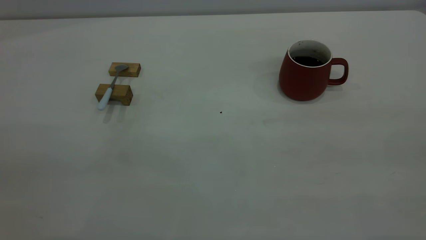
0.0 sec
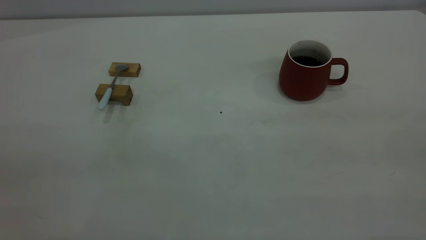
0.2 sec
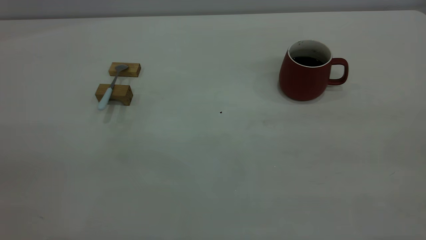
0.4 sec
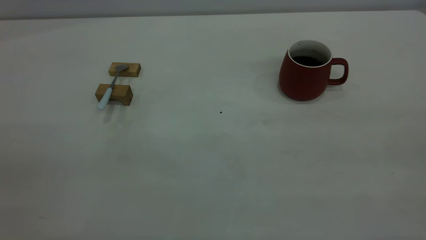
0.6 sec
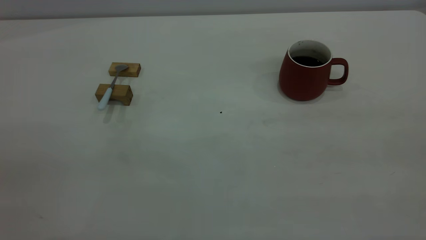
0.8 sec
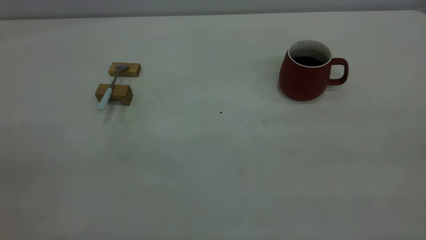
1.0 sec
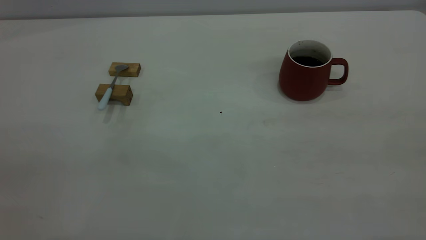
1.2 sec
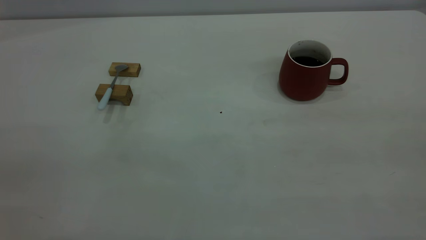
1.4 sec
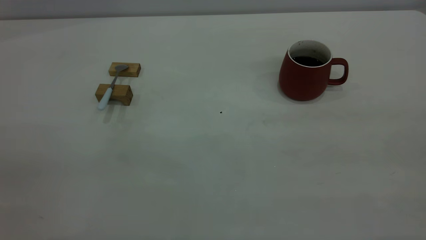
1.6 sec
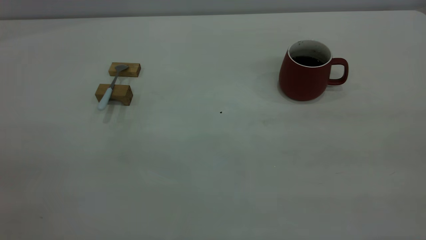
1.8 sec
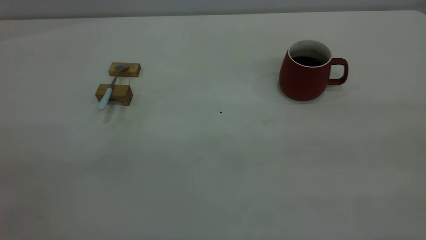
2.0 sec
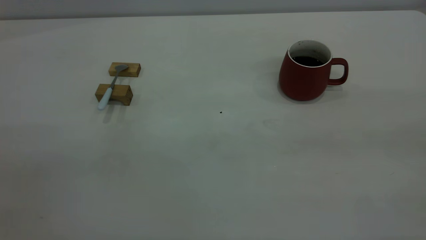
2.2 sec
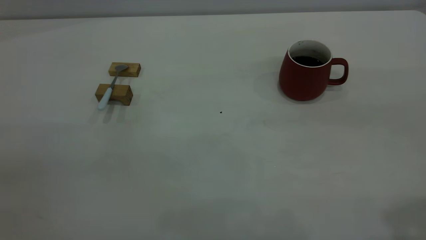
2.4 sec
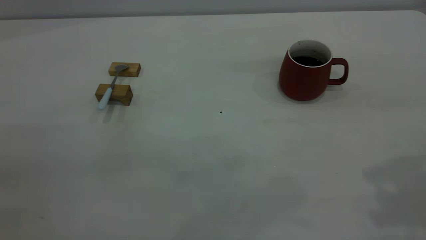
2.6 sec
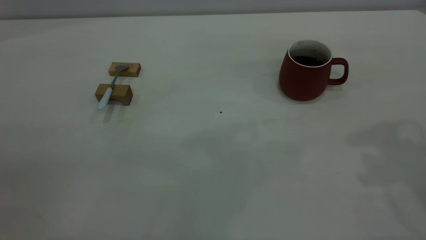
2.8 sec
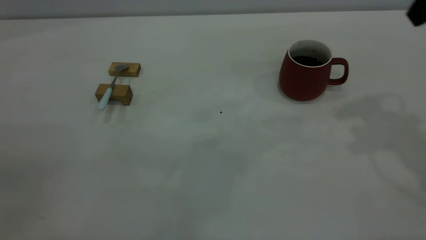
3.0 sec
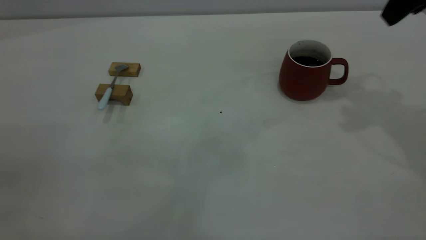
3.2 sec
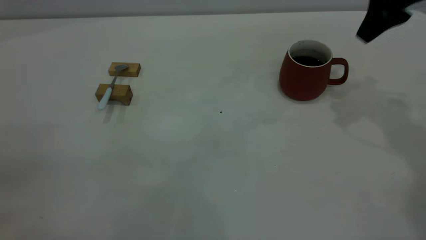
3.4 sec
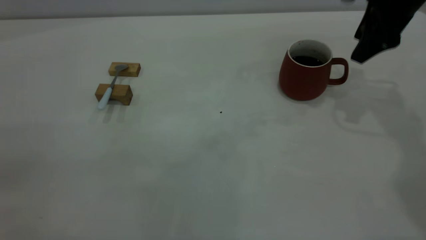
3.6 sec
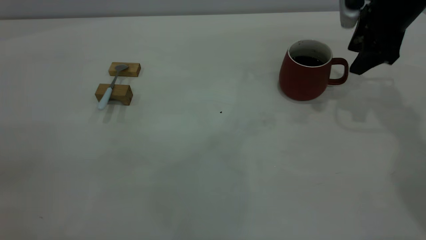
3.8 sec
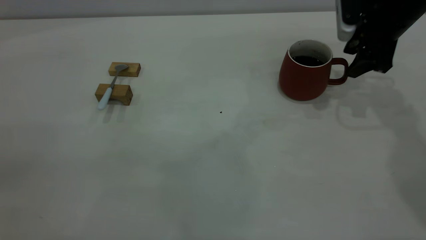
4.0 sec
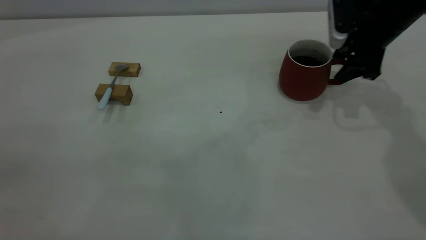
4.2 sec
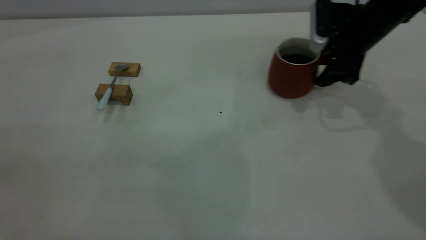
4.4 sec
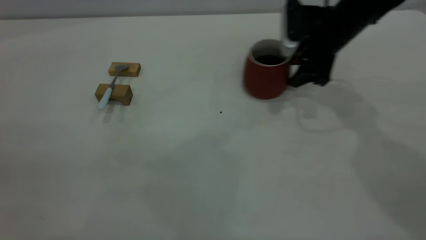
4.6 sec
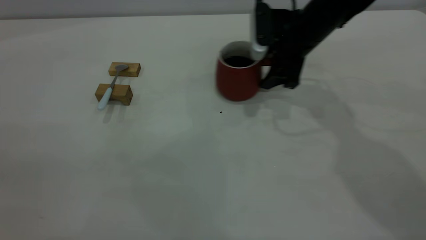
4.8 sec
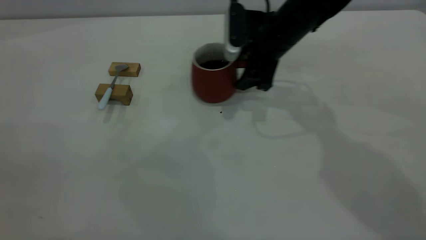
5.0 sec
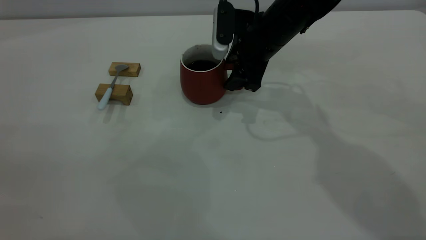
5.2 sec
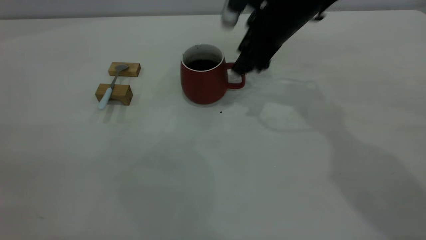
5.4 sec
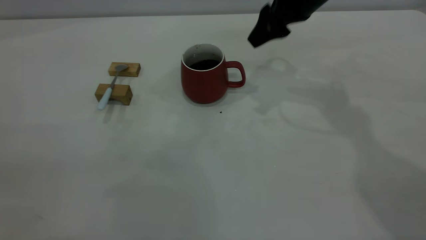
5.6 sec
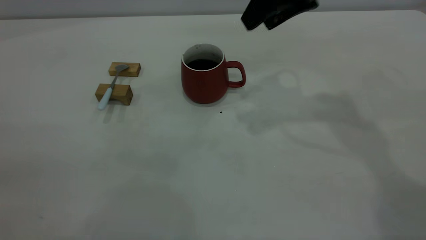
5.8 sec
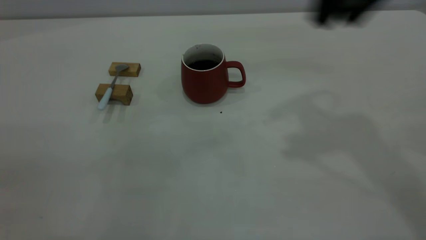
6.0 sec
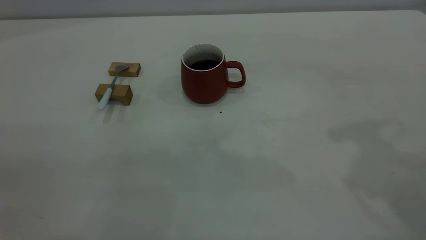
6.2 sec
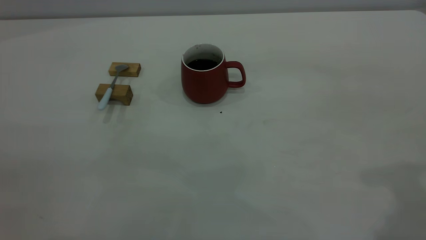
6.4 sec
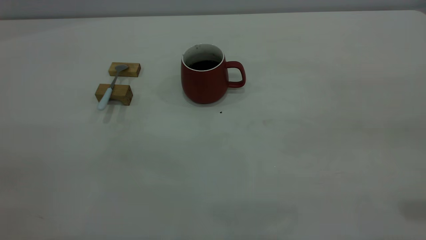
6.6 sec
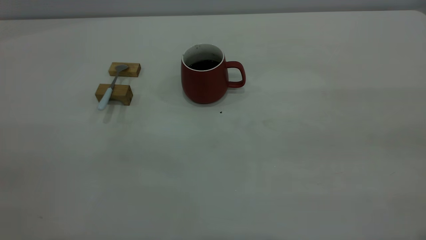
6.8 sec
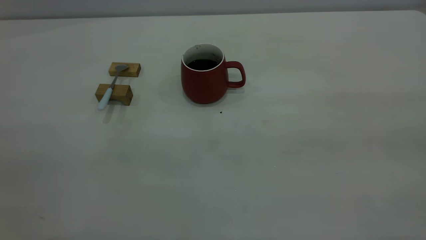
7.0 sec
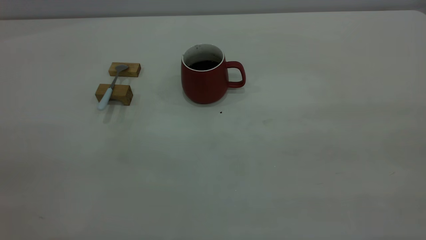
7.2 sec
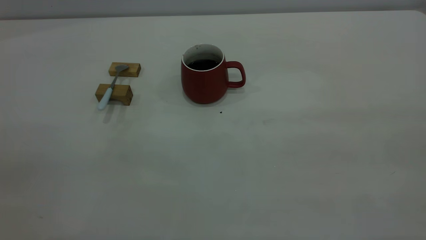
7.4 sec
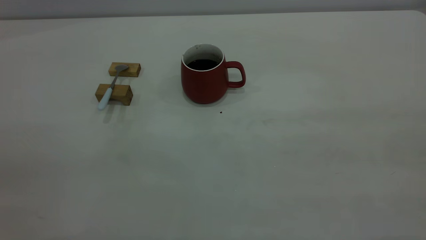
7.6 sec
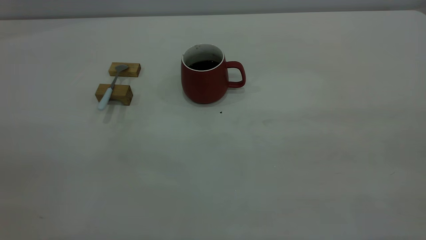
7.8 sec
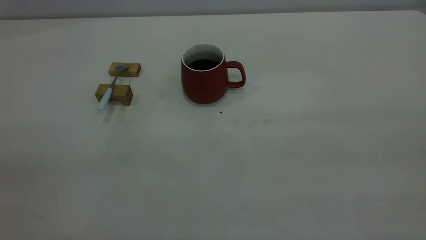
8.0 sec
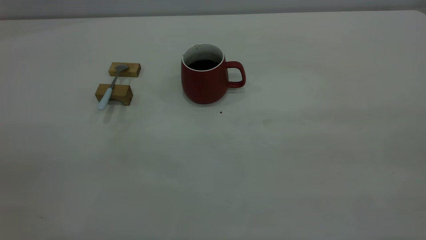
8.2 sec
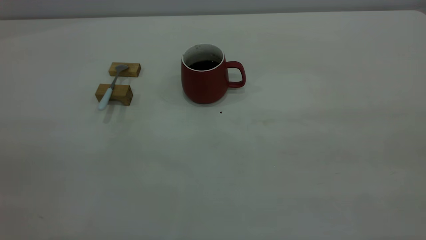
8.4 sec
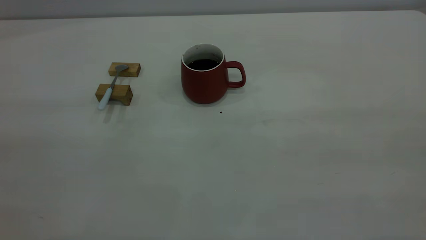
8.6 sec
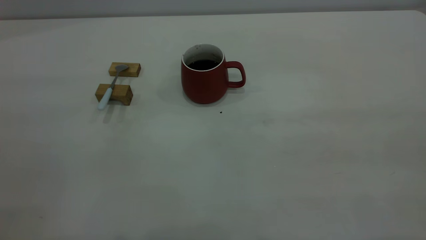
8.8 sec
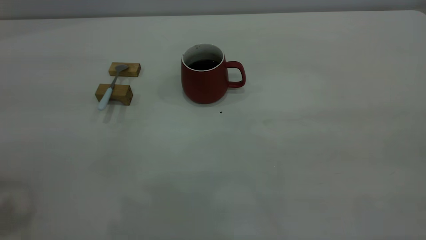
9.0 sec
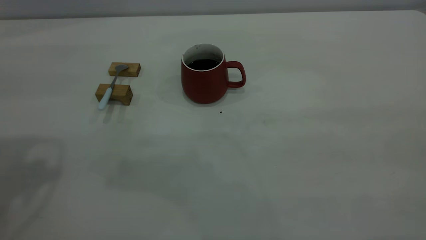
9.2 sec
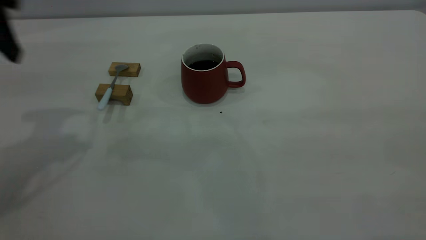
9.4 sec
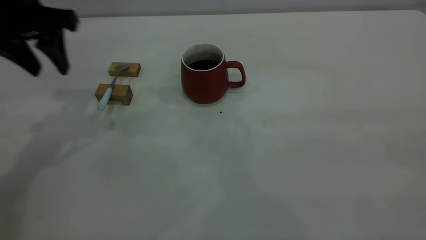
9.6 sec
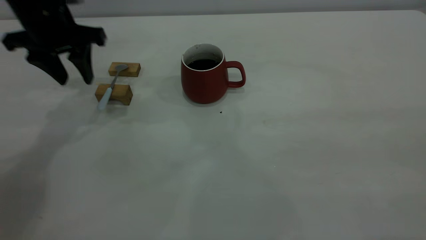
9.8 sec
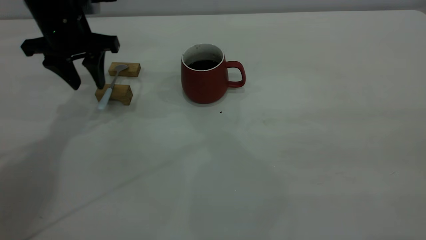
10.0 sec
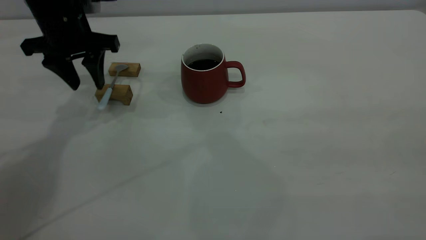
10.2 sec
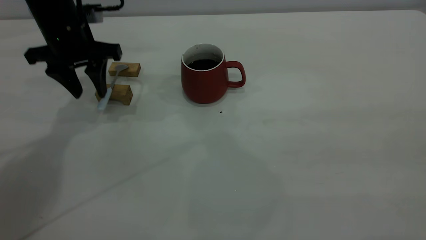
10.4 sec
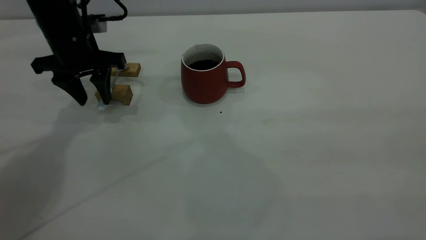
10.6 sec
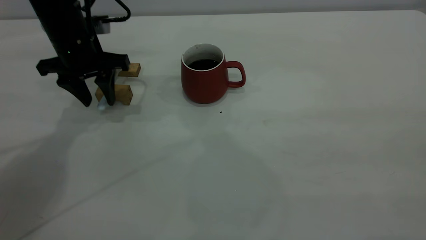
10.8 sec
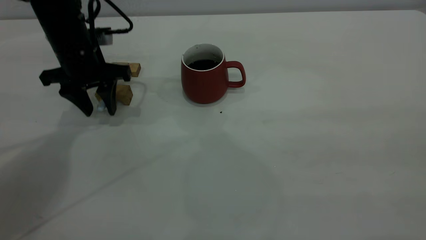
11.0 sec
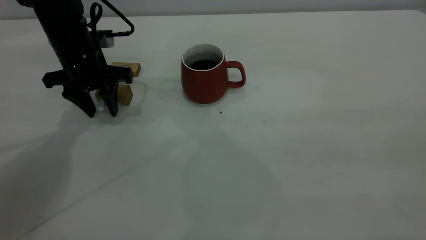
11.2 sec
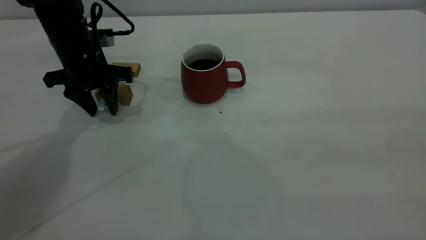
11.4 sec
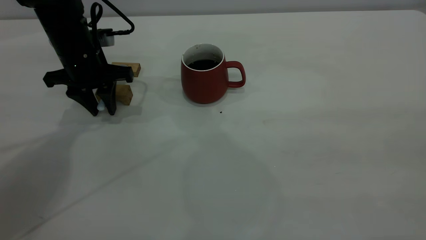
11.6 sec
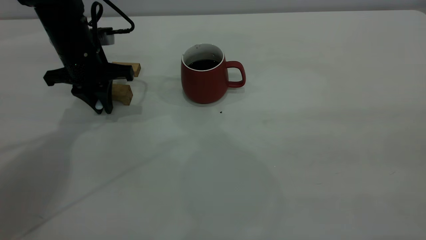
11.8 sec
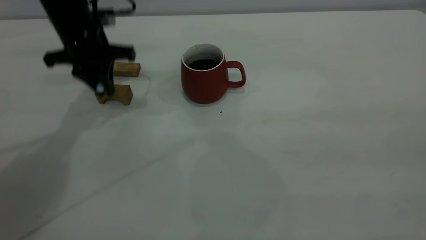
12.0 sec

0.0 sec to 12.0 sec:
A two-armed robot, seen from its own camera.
Step, 0.0 sec to 5.6 sec: Move the cup with coffee to the center of view.
0.0 sec to 1.6 sec: Both grippers stay about where they are.
3.0 sec to 4.4 sec: The right gripper is displaced downward and forward by approximately 20 cm.
4.4 sec to 6.0 sec: The right gripper heads upward and backward, covering roughly 25 cm.
6.0 sec to 7.6 sec: The right gripper is displaced backward by some 30 cm.
9.0 sec to 10.4 sec: The left gripper moves downward and forward, approximately 35 cm.
10.4 sec to 12.0 sec: The left gripper closes.

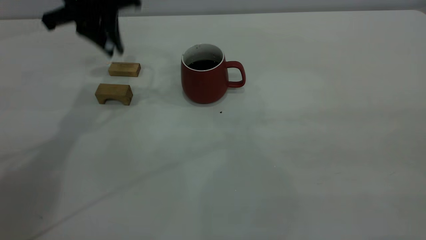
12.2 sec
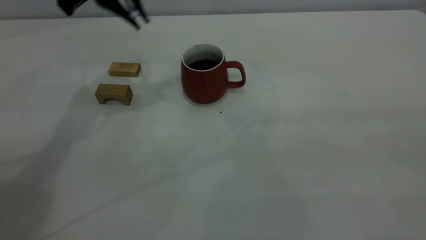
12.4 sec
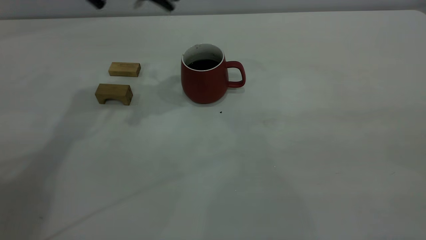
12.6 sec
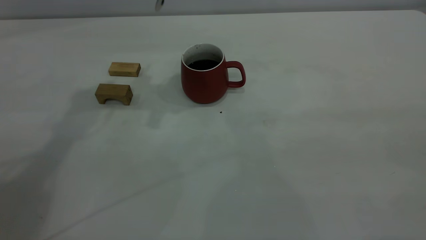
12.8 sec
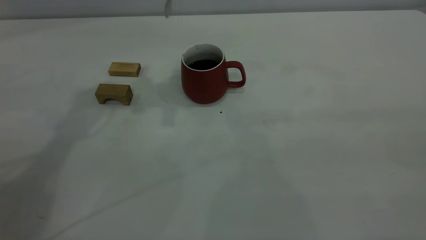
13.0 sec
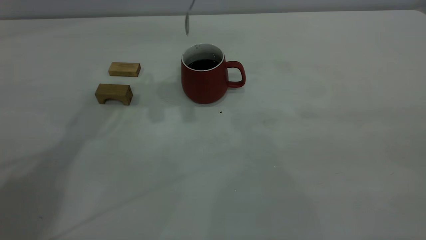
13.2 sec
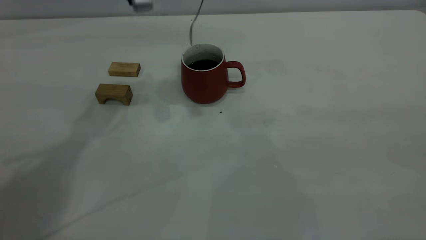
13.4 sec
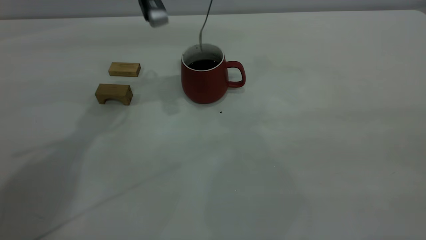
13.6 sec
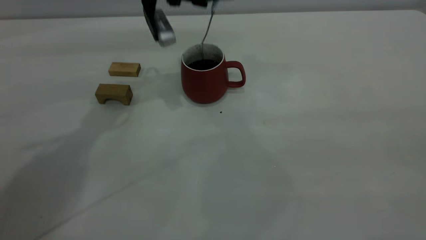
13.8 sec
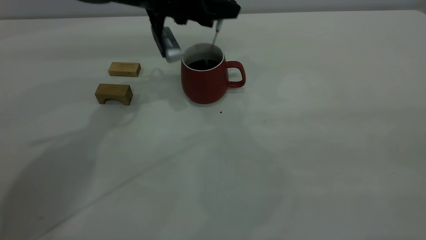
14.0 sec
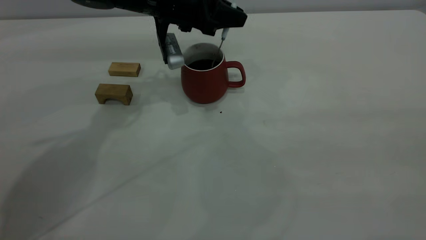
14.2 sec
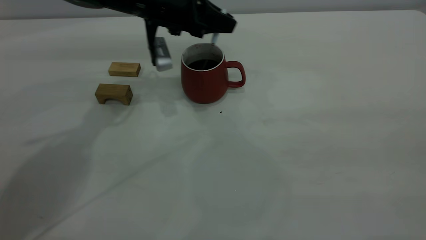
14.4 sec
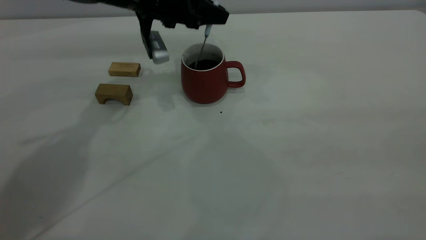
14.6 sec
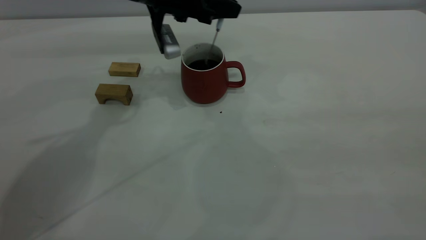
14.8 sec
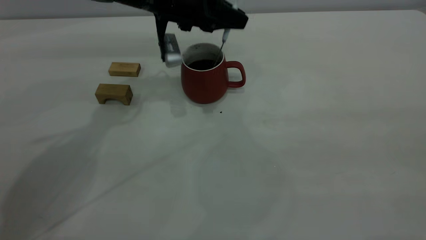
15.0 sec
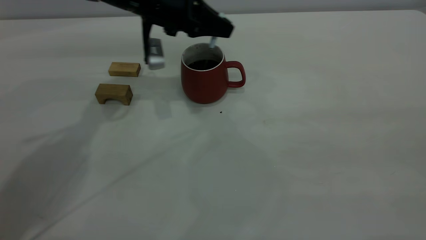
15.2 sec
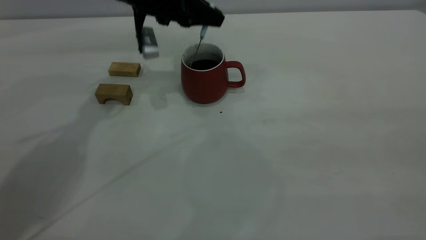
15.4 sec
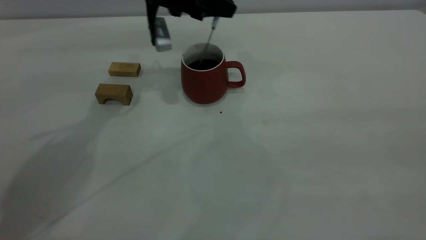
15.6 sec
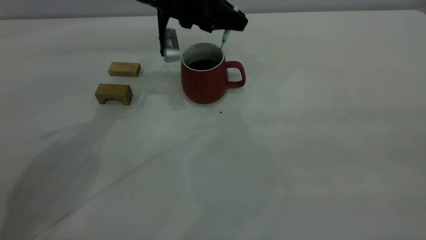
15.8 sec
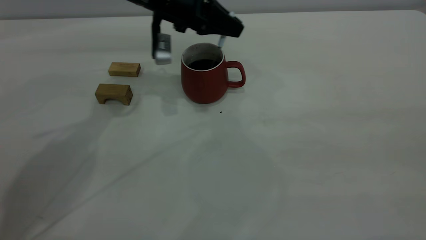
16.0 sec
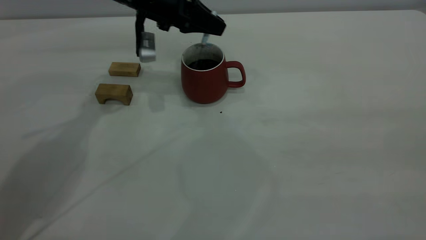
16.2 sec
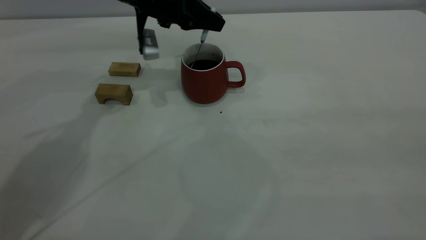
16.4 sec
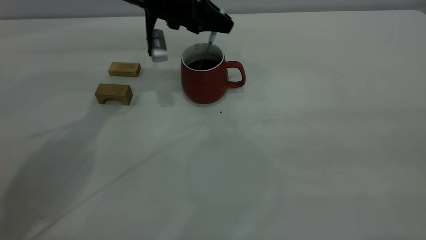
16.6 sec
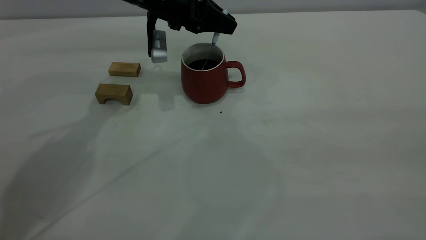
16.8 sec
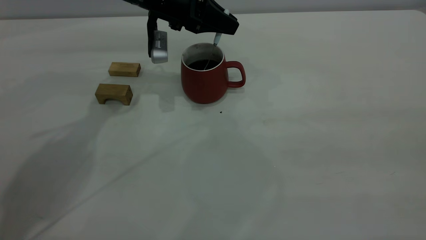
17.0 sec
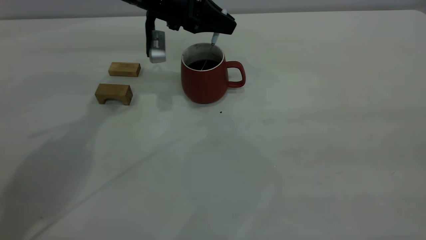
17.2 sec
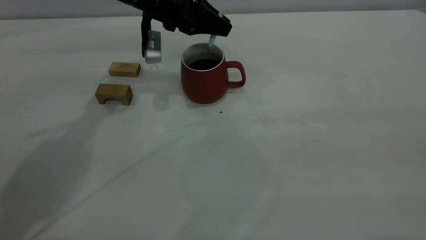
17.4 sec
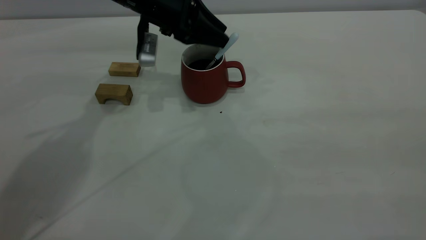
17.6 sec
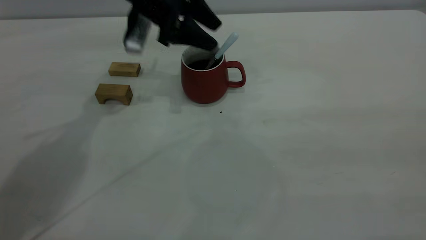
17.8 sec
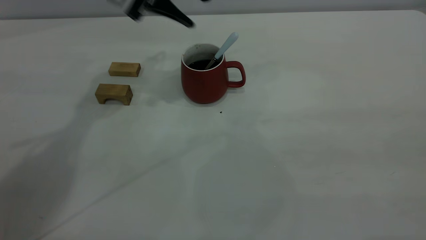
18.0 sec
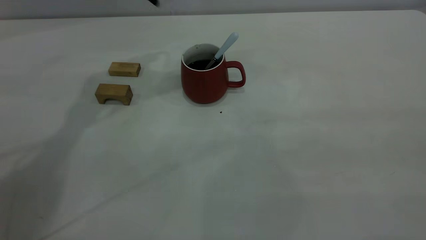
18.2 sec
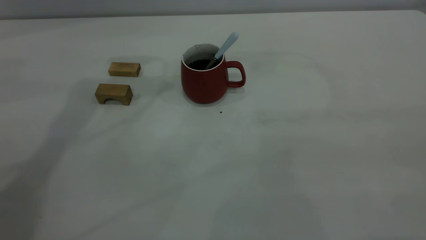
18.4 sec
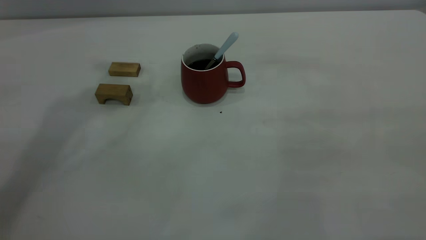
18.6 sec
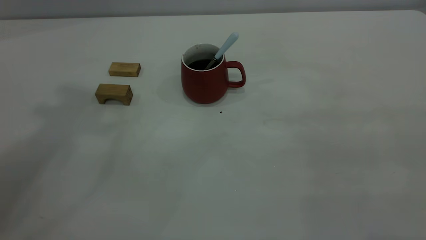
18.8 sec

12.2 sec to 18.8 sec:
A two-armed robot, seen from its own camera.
Step, 12.2 sec to 17.8 sec: Stir the coffee in the cup.
12.2 sec to 13.8 sec: The left gripper goes approximately 10 cm to the right and downward.
13.8 sec to 17.2 sec: The grippers stay close to where they were, moving slightly.
17.2 sec to 18.8 sec: The left gripper is displaced upward and backward by about 40 cm, and opens up.
